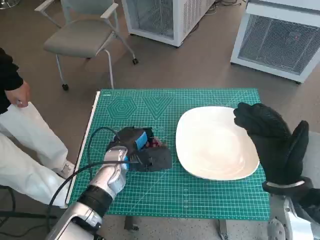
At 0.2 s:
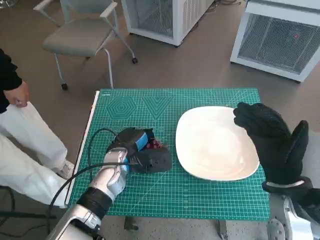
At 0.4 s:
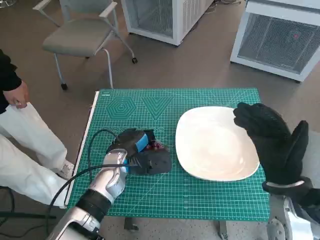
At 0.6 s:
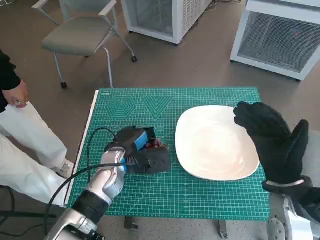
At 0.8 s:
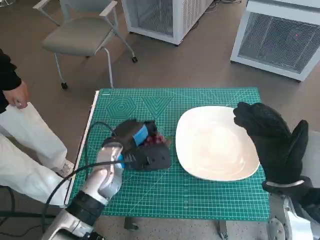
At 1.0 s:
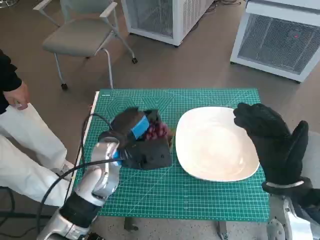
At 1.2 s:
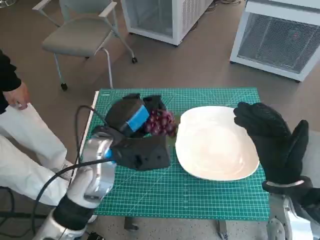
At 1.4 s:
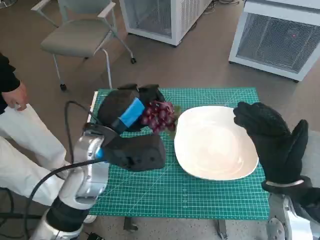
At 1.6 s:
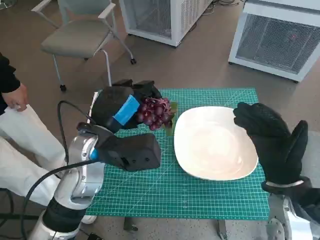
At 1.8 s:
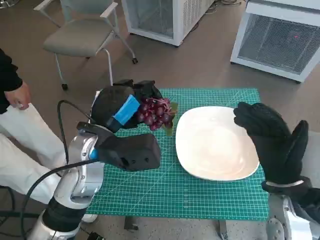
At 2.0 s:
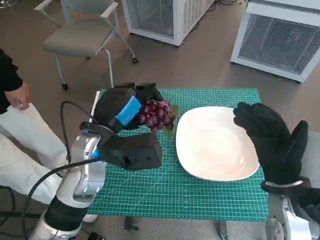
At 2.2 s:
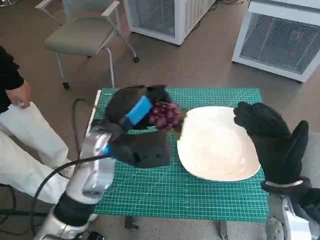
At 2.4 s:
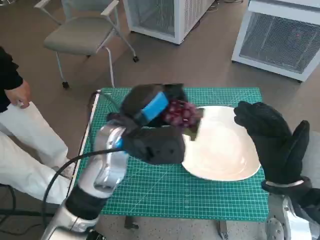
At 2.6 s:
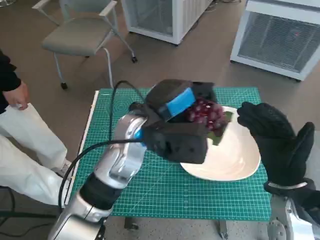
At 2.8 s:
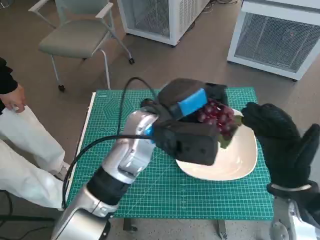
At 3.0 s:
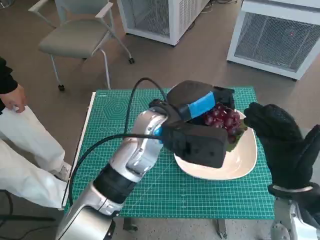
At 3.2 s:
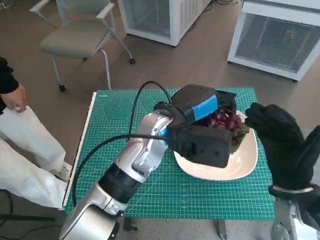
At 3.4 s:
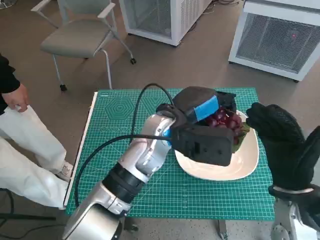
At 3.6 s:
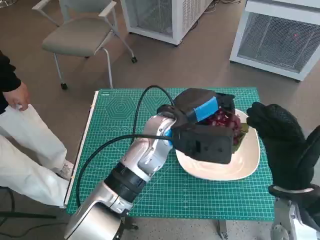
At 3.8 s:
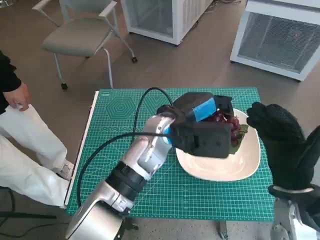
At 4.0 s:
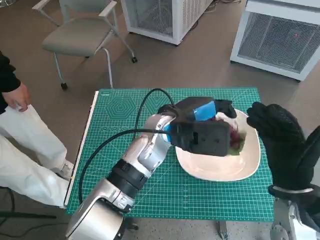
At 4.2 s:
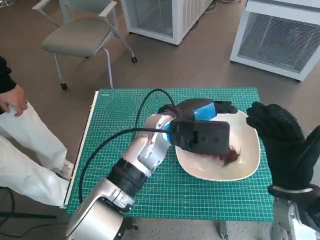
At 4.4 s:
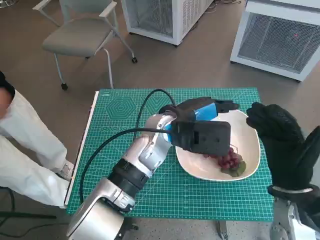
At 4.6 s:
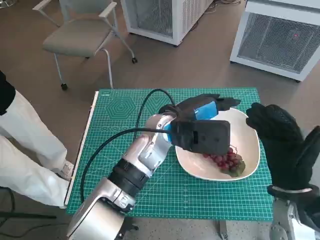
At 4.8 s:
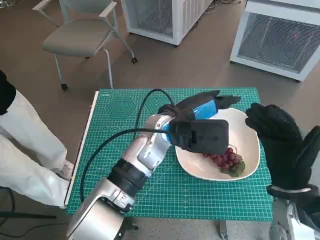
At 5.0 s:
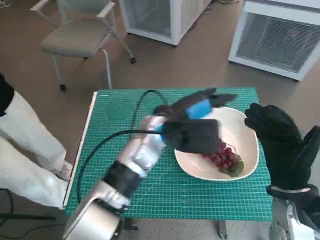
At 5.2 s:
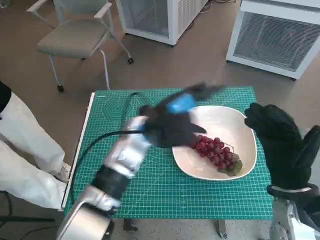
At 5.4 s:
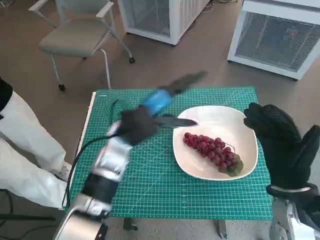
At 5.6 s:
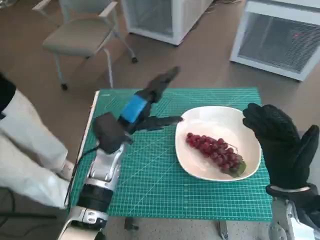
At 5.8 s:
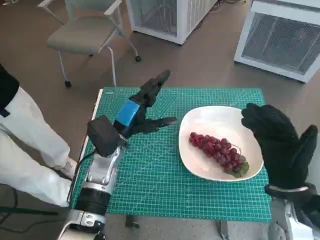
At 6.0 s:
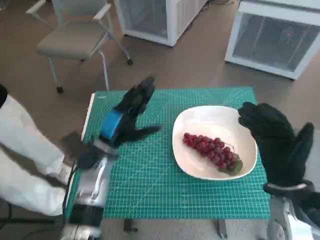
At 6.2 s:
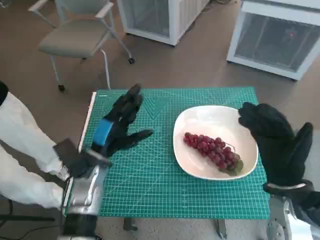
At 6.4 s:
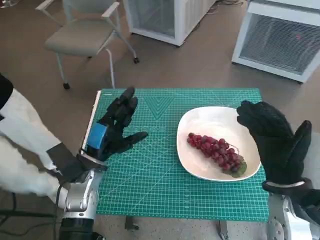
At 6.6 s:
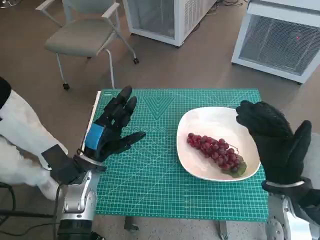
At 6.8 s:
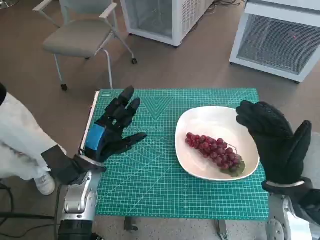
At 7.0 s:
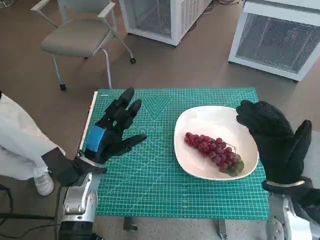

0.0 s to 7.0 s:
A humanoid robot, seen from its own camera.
Task of the whole recording: Pick up the grapes and put them on the plate.
Step, 0.8 to 4.4 s: Place the grapes in the plate with left hand.
0.0 to 1.4 s: The left hand moves upward, about 10 cm.
1.4 to 2.8 s: The left hand shifts some 10 cm to the right.
2.8 to 4.2 s: The left hand shifts by about 5 cm.
4.2 to 5.6 s: The left hand travels to the left by some 10 cm.
5.6 to 7.0 s: The left hand travels to the left, backward and downward by roughly 10 cm.

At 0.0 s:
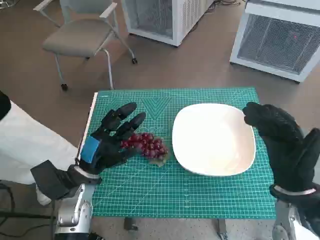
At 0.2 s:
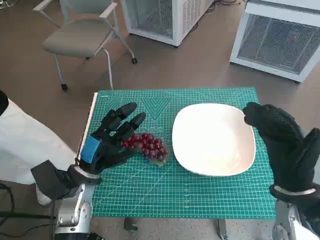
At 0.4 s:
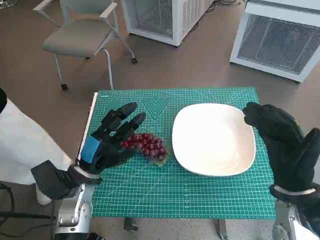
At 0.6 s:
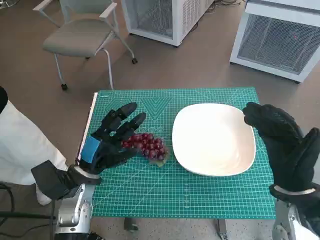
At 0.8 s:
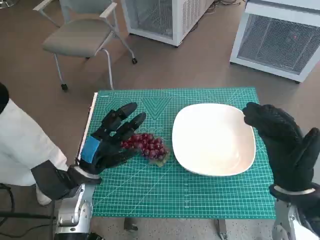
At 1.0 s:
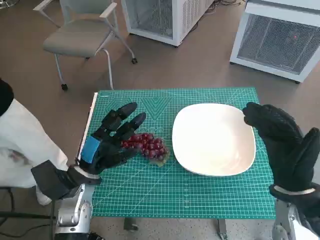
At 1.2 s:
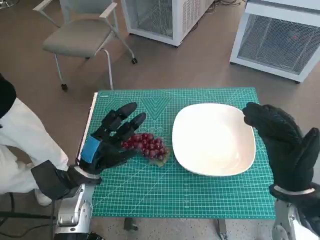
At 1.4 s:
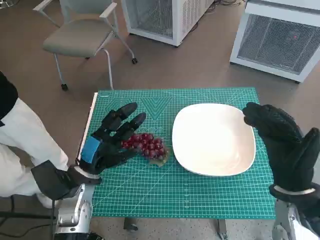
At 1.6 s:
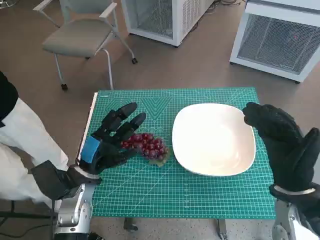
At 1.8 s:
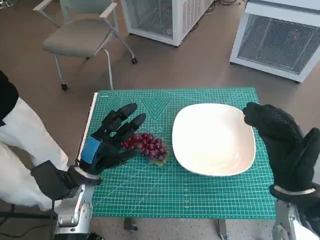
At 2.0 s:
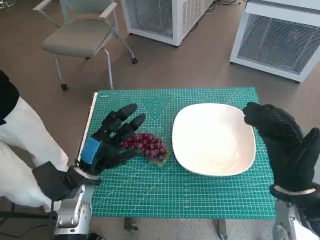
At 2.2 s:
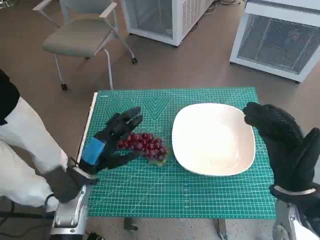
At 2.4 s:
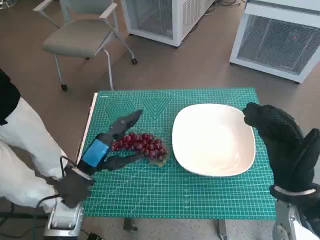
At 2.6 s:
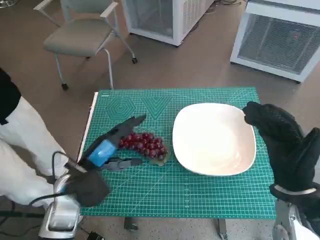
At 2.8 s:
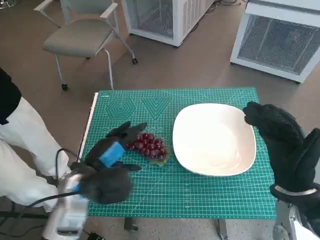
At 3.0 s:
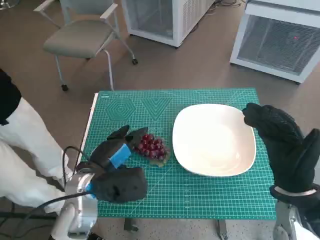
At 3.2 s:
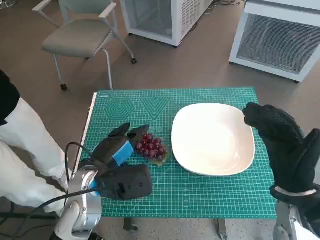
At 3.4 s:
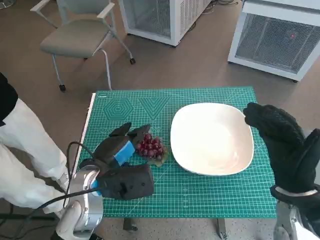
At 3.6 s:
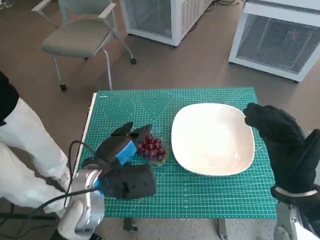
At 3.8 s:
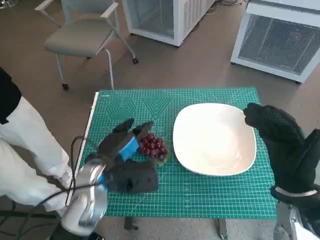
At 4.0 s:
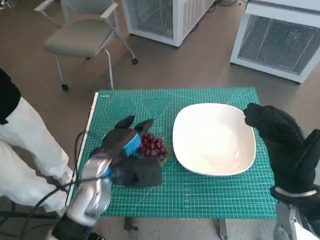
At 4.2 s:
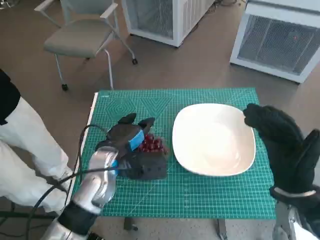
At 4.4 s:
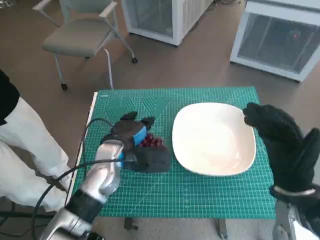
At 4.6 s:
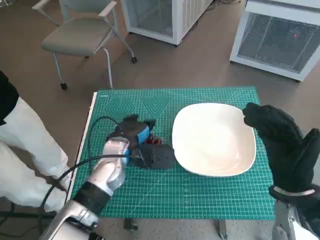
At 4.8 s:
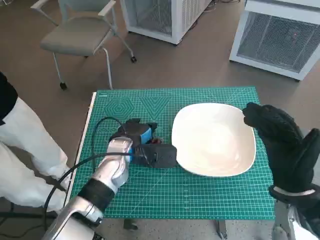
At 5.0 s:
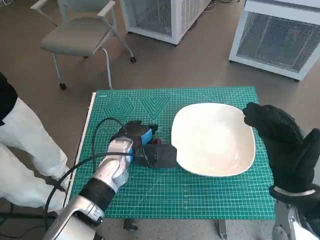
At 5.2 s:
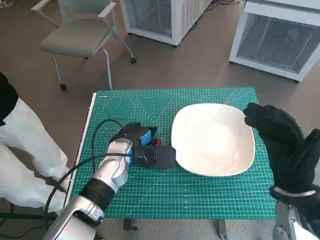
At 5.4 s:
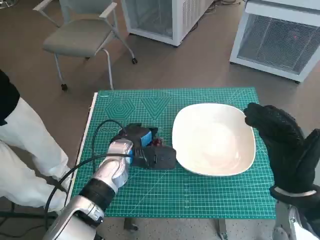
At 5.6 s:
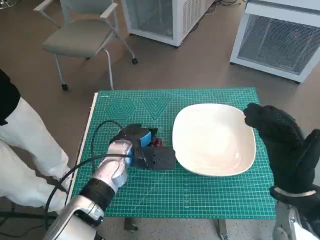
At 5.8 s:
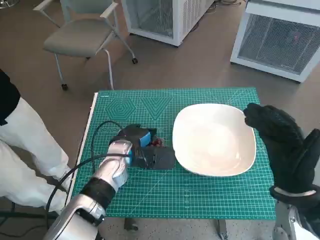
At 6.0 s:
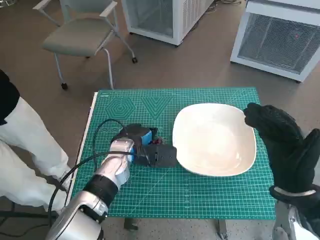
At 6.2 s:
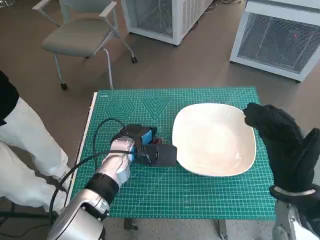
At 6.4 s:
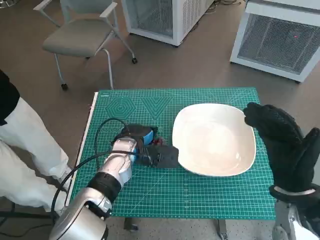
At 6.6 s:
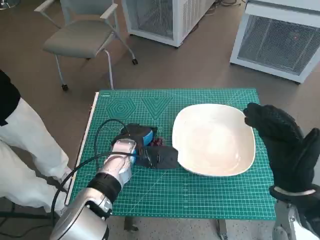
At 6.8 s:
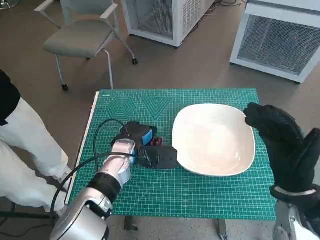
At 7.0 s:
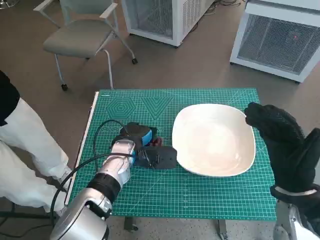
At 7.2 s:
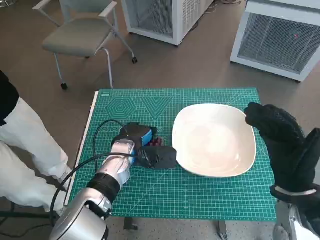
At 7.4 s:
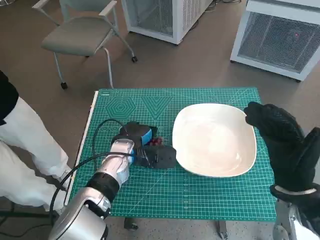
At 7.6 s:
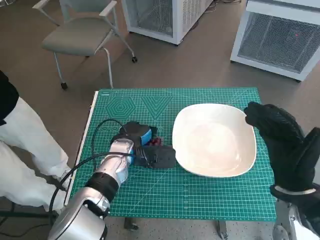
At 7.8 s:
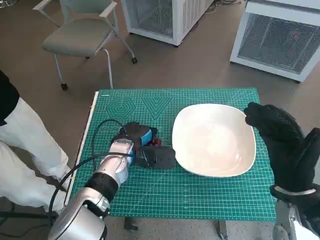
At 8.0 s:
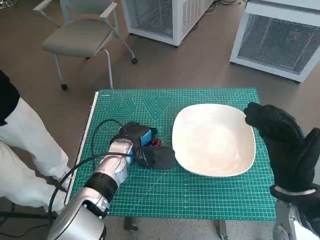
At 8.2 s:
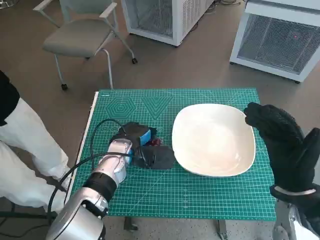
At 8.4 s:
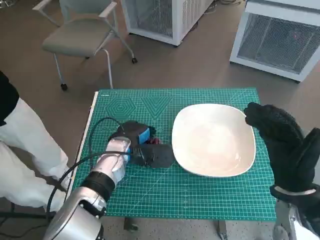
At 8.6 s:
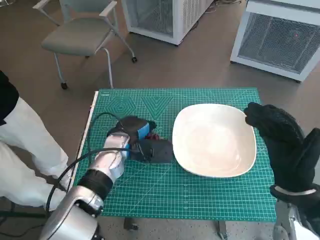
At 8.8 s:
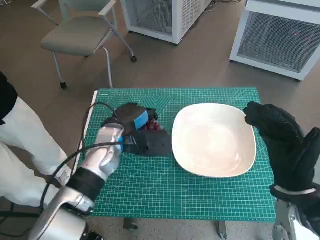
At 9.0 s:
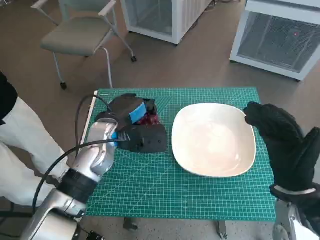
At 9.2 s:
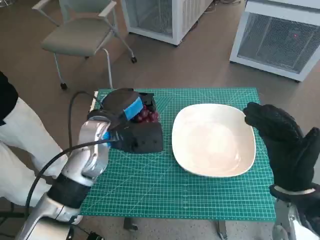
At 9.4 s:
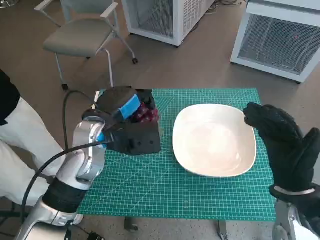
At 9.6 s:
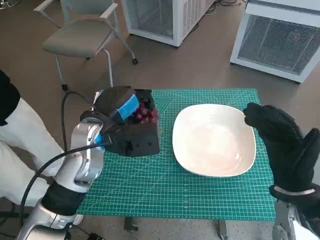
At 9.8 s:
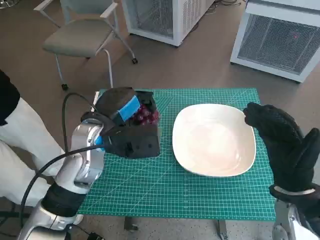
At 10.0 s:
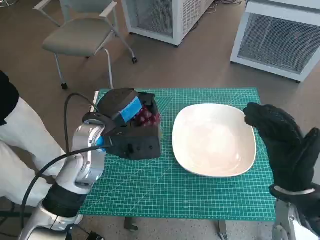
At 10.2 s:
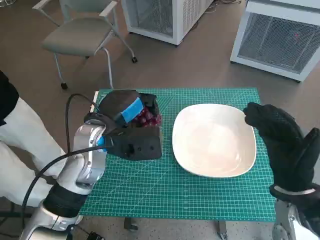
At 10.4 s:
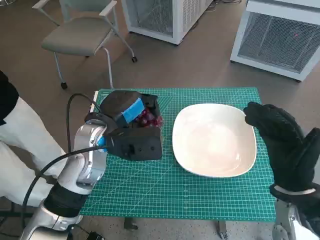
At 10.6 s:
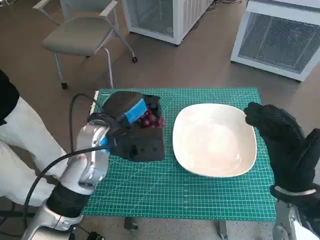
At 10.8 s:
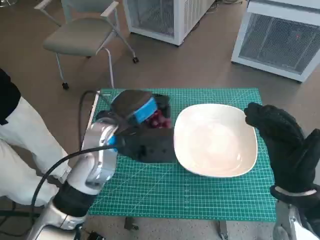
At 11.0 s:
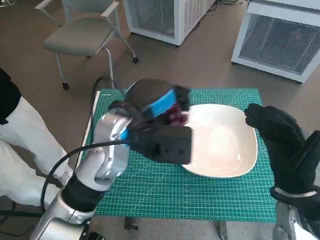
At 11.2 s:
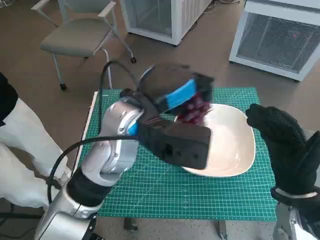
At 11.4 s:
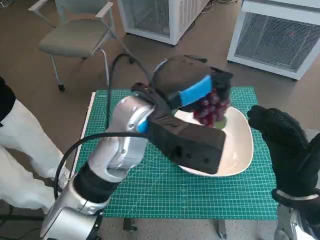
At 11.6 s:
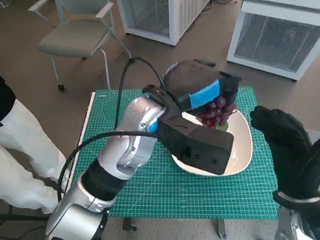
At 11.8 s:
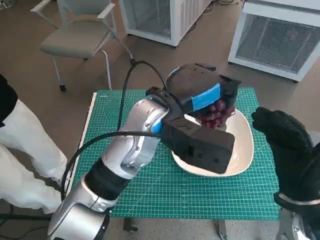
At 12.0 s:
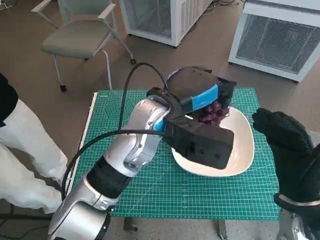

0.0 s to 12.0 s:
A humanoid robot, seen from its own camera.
Task of the whole recording: Pick up the grapes and put them on the plate.
Step, 0.0 to 8.2 s: Grasp the grapes with left hand.
3.0 to 4.4 s: The left hand moves forward, approximately 5 cm.
4.4 to 7.6 s: The hands stay close to where they were, moving slightly.
7.6 to 9.0 s: The left hand goes some 5 cm upward.
9.0 to 10.4 s: The left hand ends up roughly 5 cm from where it was.
10.4 to 12.0 s: The left hand shifts about 10 cm to the right and upward.

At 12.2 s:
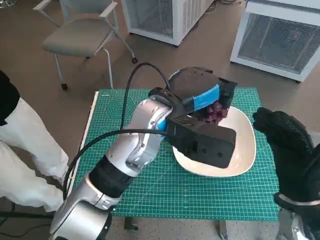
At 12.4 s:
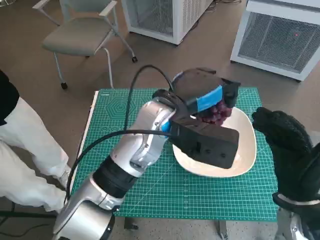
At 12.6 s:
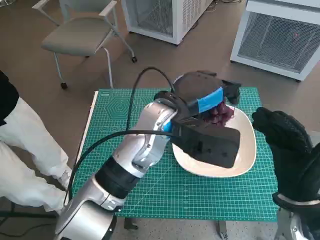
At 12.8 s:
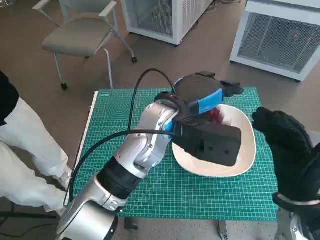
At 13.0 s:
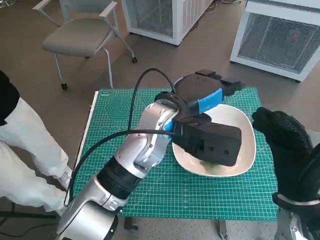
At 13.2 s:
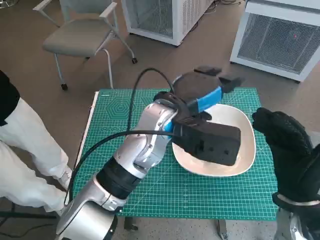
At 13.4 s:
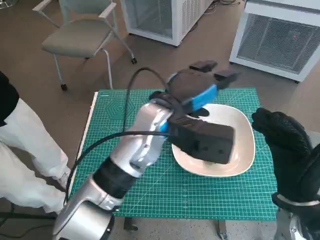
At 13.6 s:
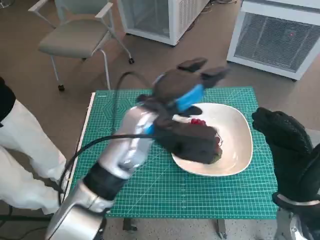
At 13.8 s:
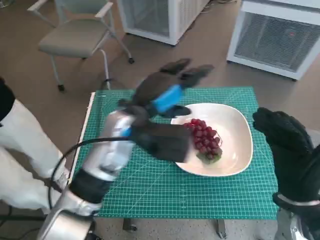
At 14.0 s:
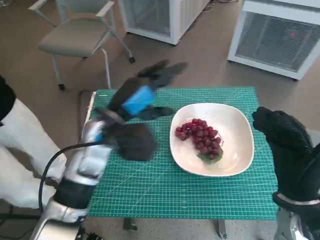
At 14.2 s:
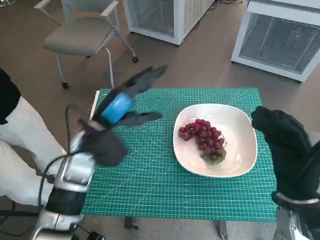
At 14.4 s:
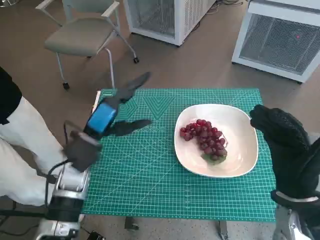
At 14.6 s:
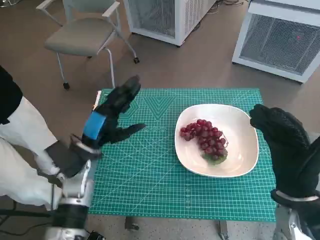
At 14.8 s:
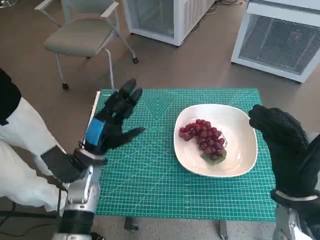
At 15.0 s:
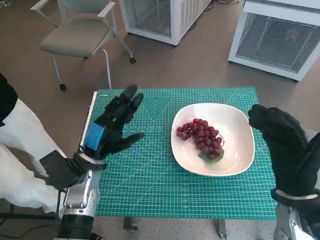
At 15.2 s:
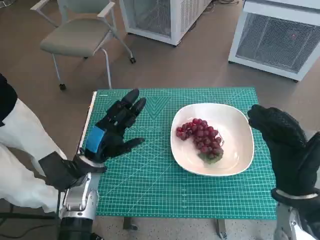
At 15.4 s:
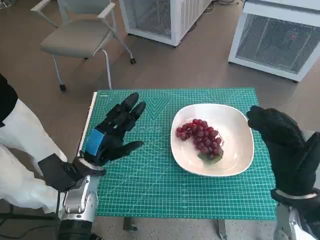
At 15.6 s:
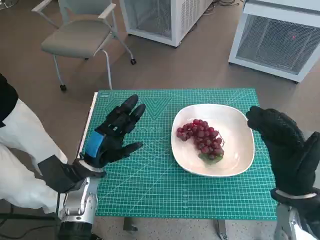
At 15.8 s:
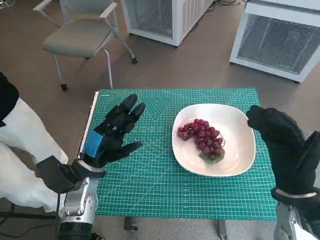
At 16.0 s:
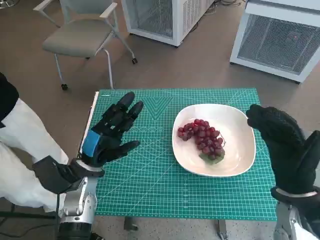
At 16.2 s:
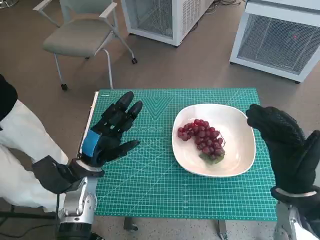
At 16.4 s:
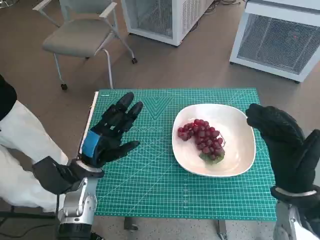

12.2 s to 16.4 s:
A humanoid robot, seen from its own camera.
Task of the whole recording: Pick up the grapes and put them on the plate.
13.6 to 15.0 s: The left hand is displaced to the left and downward by some 20 cm.
15.0 to 16.4 s: The hands move only a little.
